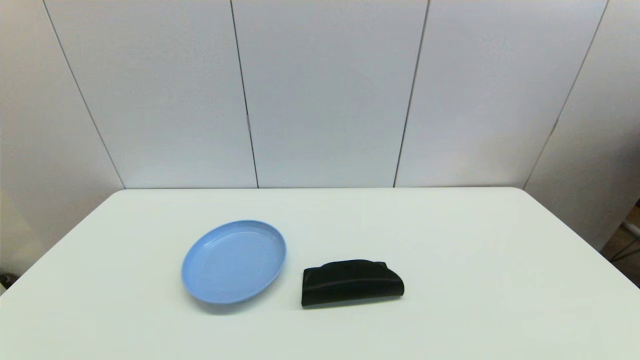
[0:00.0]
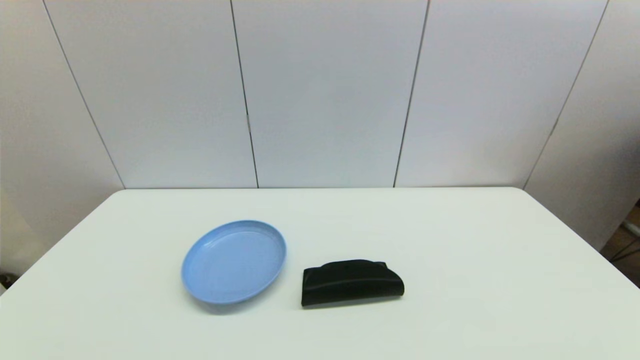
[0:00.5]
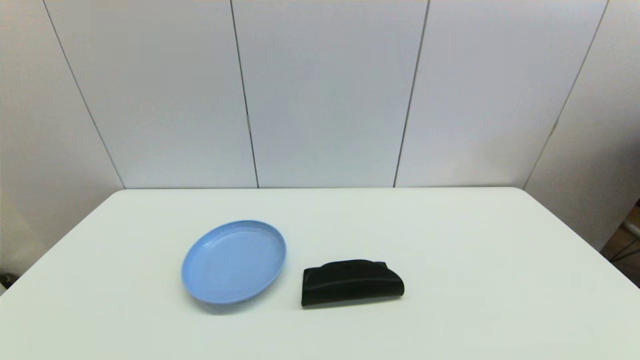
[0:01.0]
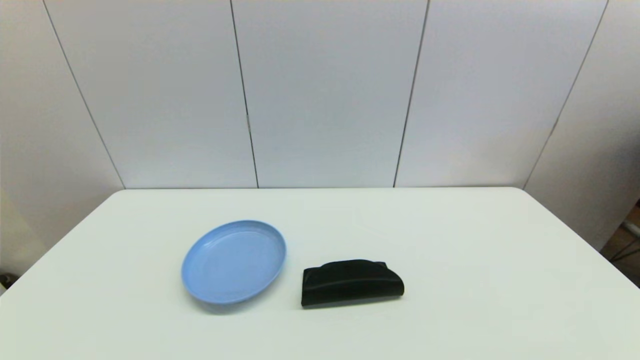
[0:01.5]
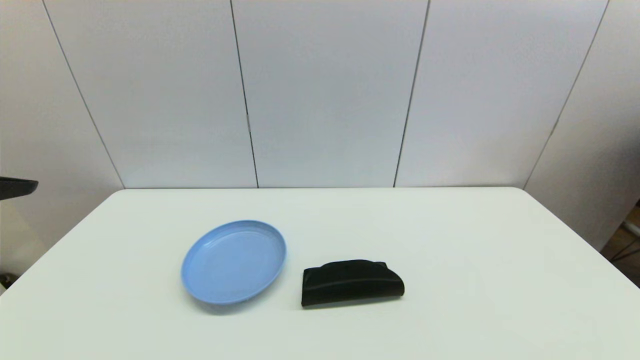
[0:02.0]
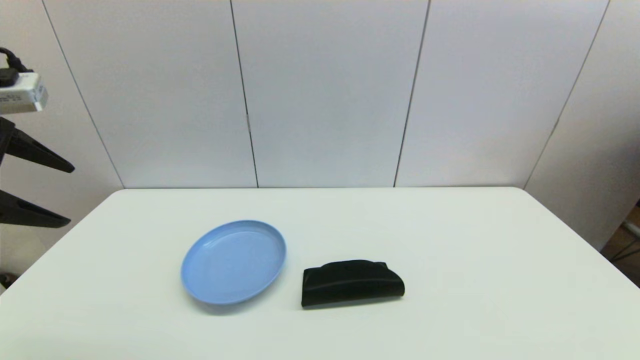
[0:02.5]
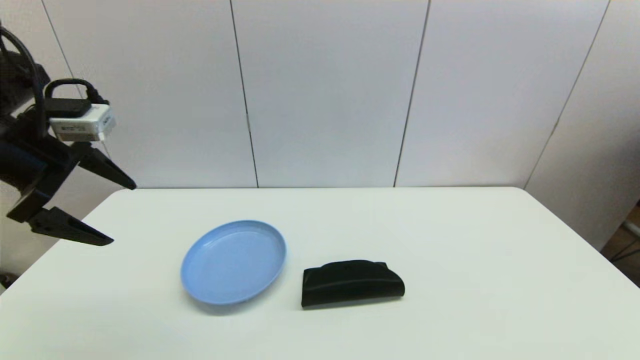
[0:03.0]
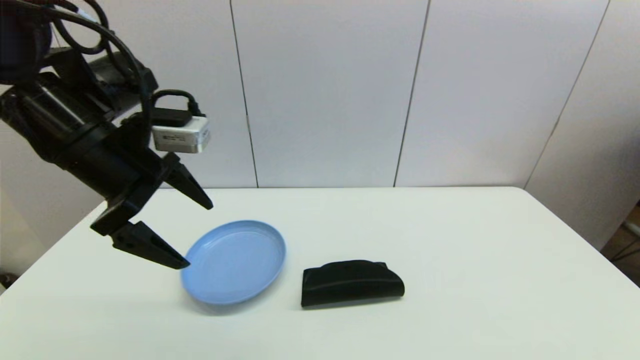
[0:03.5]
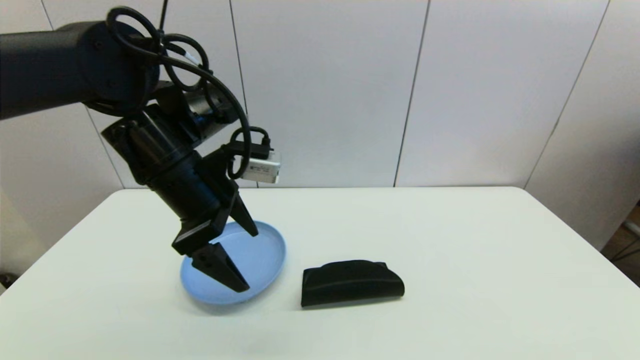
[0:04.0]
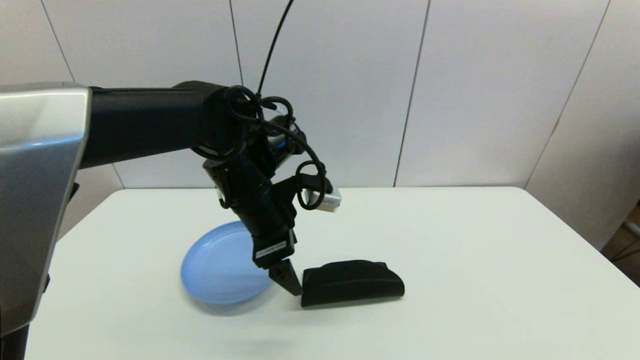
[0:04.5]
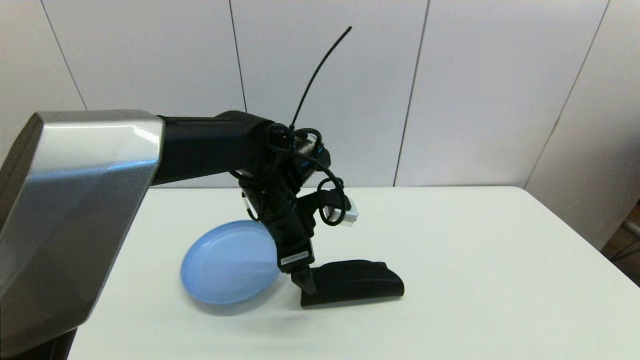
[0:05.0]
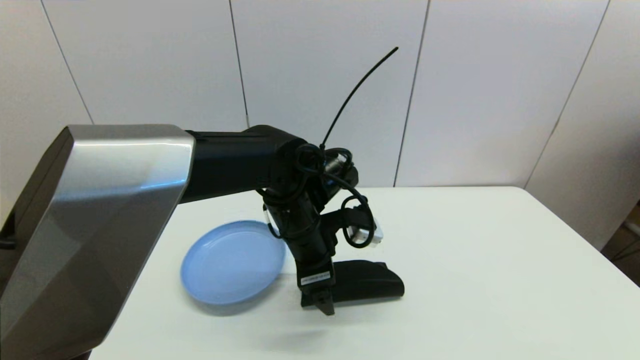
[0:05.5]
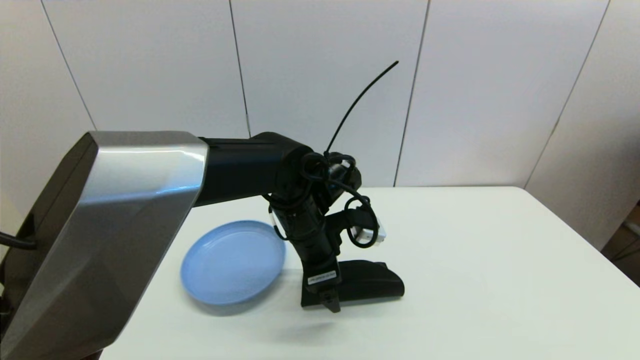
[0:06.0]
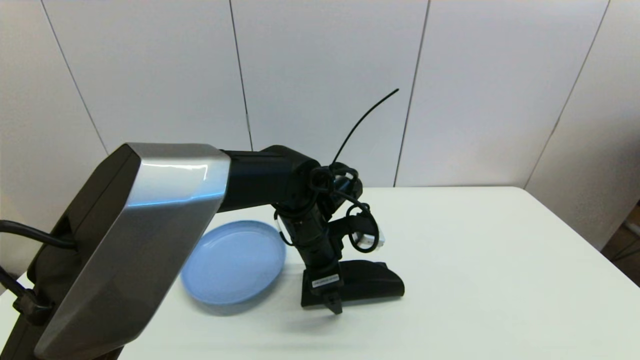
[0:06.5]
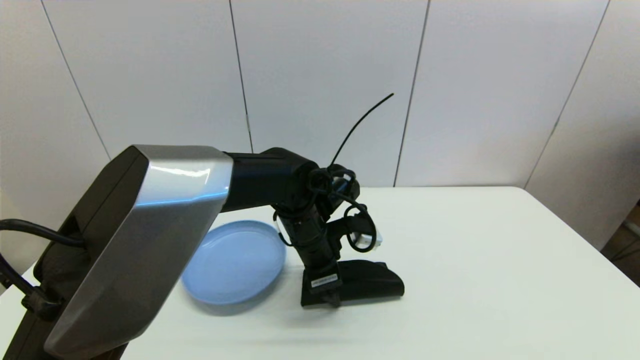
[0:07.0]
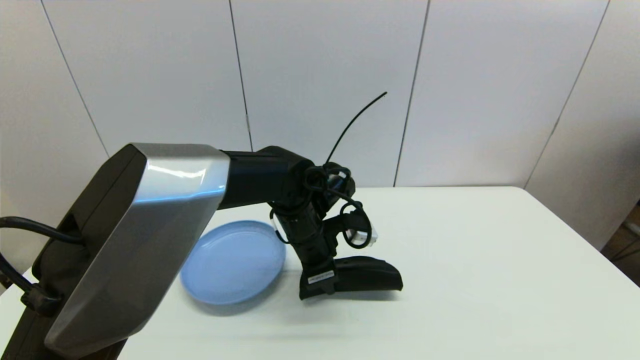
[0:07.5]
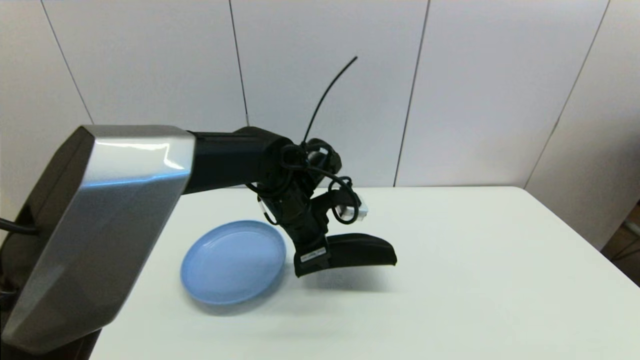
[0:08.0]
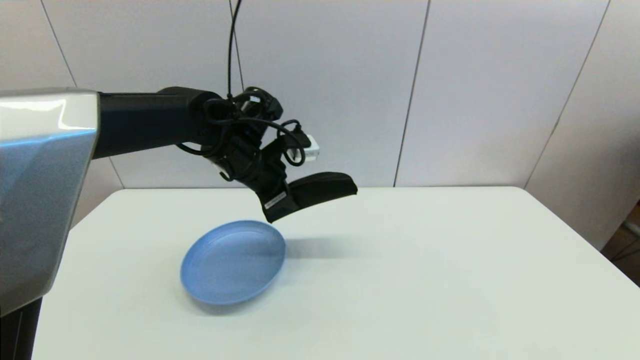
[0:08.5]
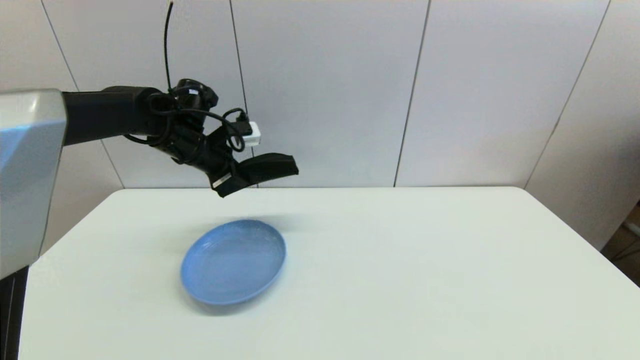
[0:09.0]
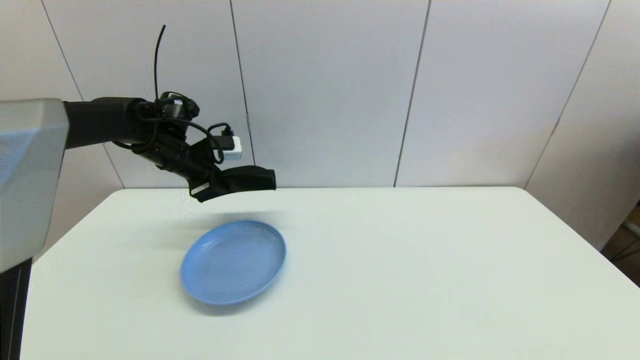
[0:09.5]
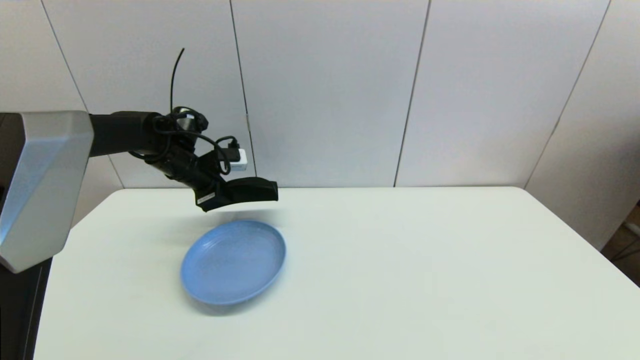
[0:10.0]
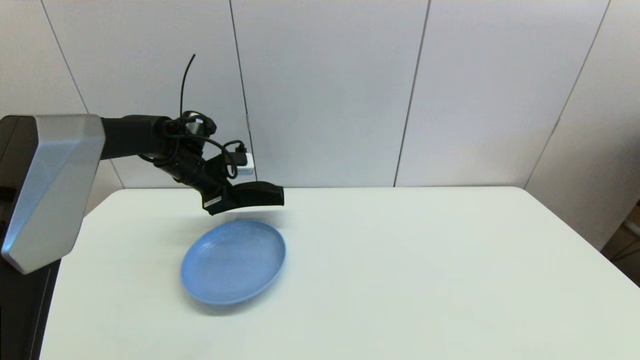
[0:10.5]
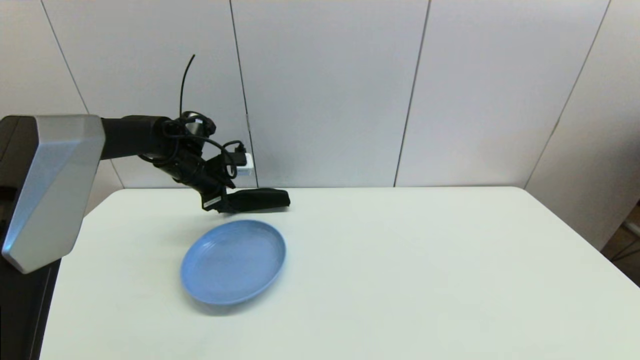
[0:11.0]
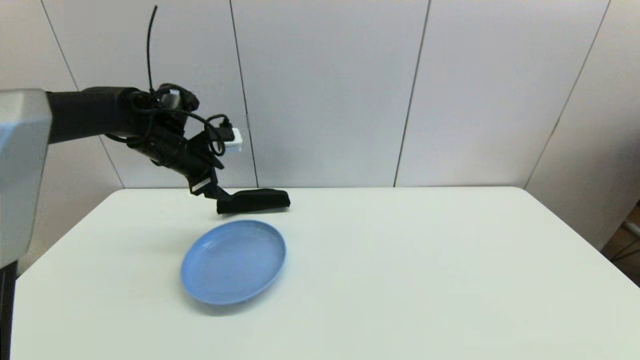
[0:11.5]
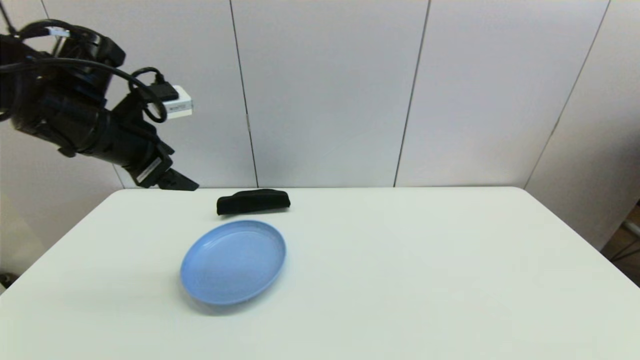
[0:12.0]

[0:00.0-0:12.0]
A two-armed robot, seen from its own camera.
Step, 0:02.0 to 0:07.0: Grasp the glasses case with left gripper.
Step, 0:07.5 to 0:10.5: Place the glasses case on the table with left gripper.
0:02.0 to 0:04.0: The left gripper heads to the right, forward and downward, covering some 25 cm.
0:04.0 to 0:06.0: The left gripper moves to the right and downward, roughly 20 cm.
0:06.0 to 0:08.0: The left gripper closes its fingers.
0:08.0 to 0:10.0: The left gripper goes about 25 cm to the left and forward.
0:10.0 to 0:12.0: The left gripper moves backward and upward, about 20 cm, and opens up.

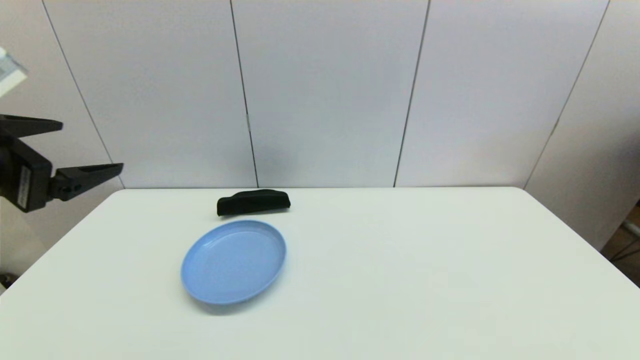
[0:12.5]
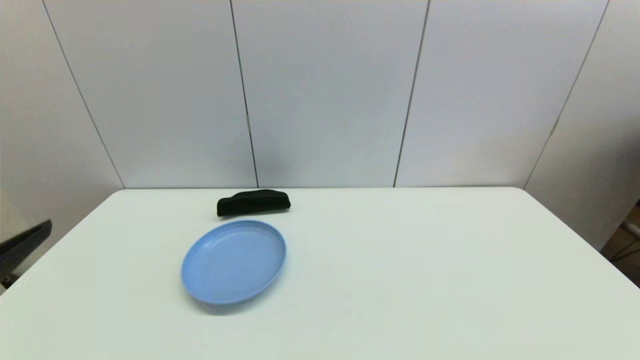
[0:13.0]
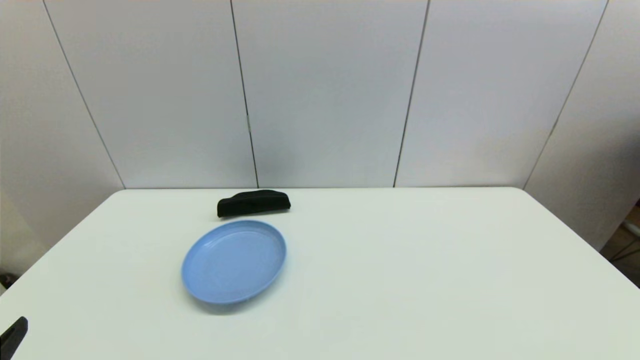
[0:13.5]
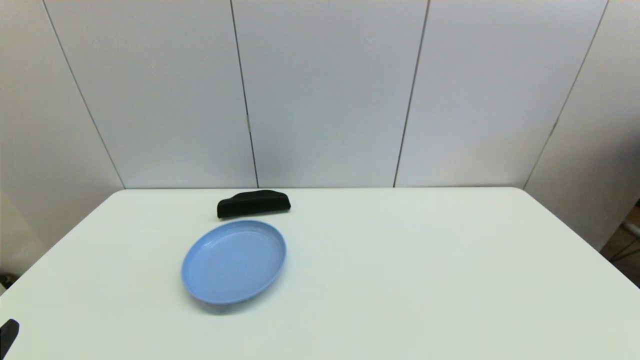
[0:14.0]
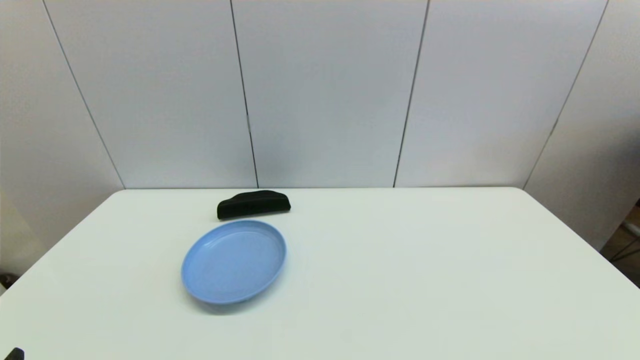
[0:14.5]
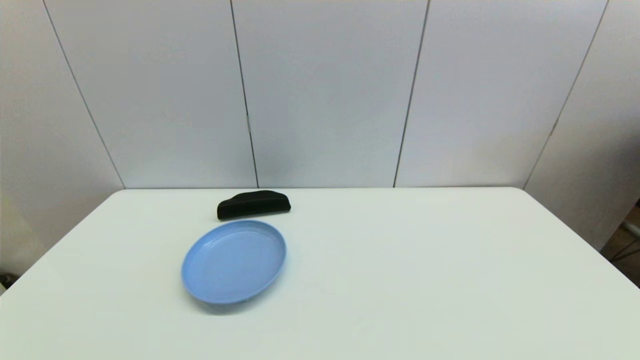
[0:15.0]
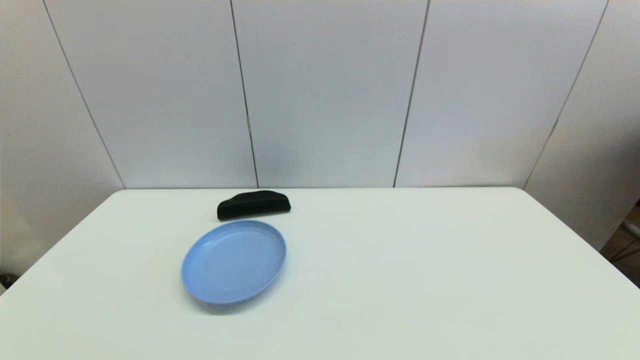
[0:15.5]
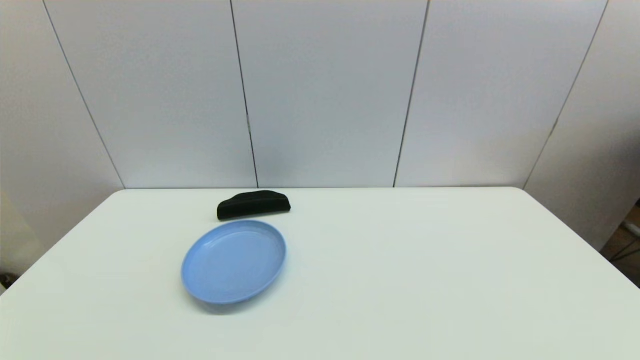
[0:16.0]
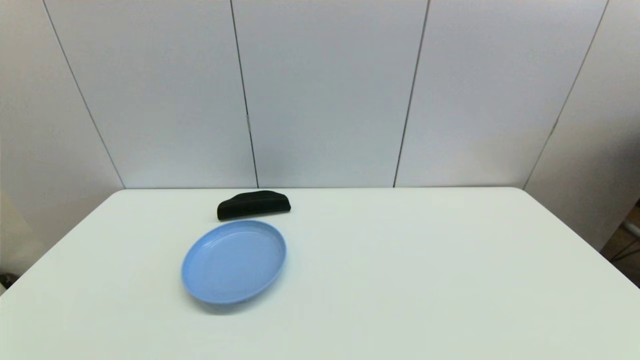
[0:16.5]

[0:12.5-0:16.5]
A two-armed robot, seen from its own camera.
0:12.5 to 0:14.5: The left gripper shifts some 25 cm downward and backward.

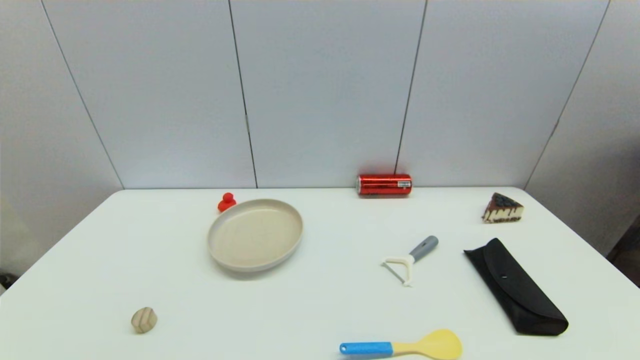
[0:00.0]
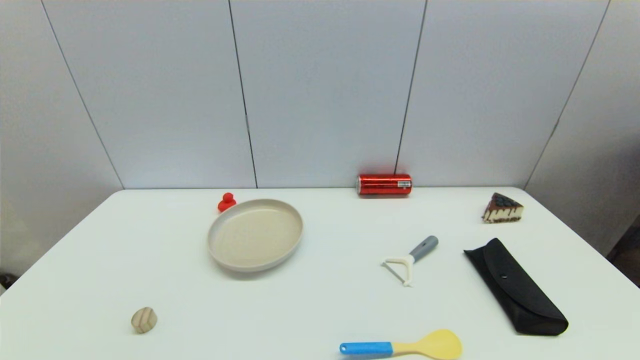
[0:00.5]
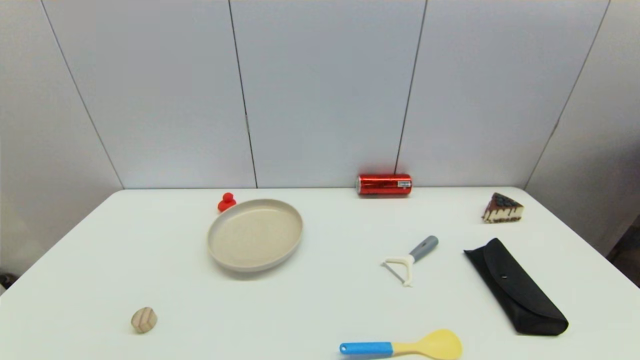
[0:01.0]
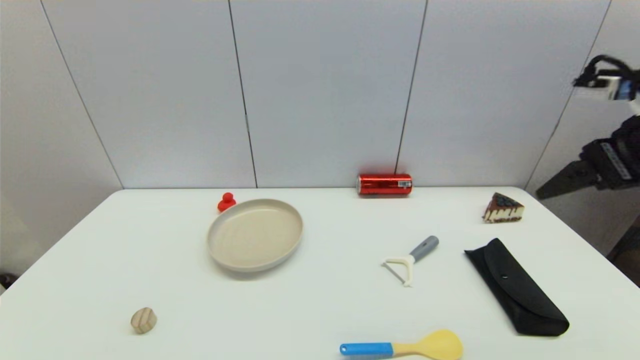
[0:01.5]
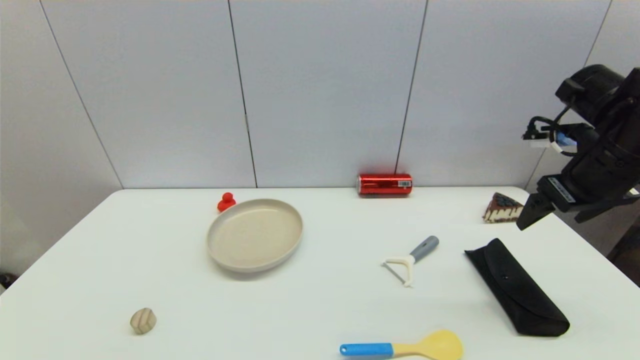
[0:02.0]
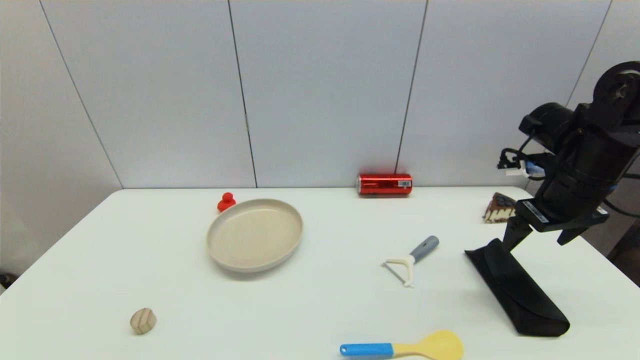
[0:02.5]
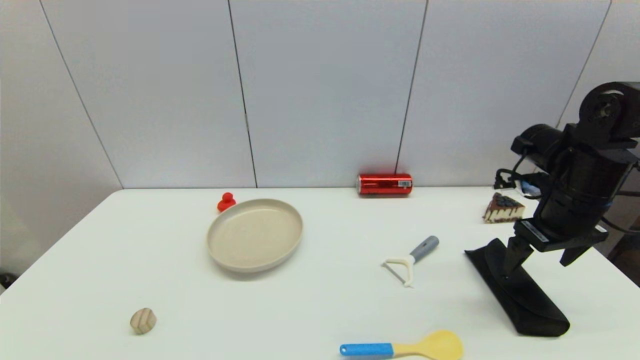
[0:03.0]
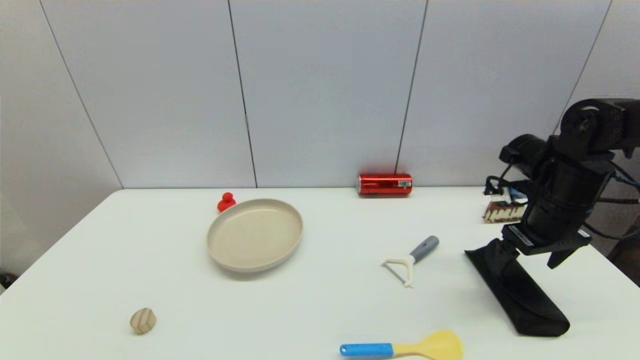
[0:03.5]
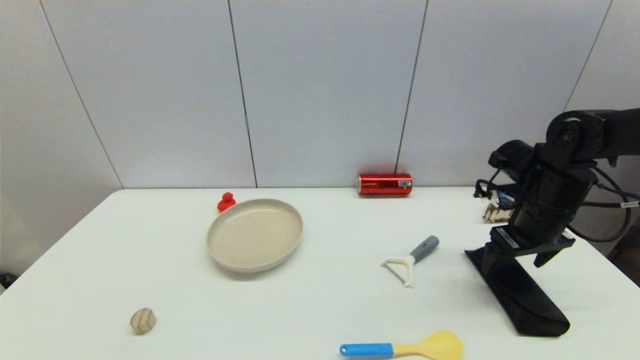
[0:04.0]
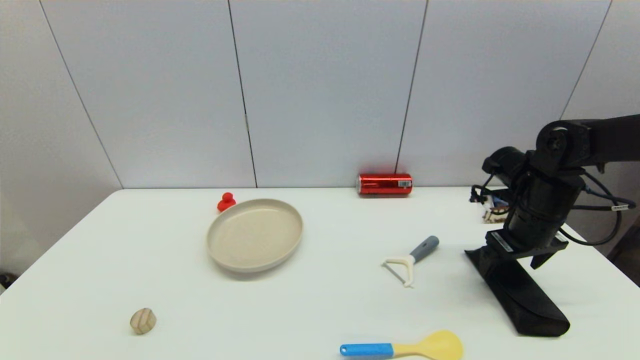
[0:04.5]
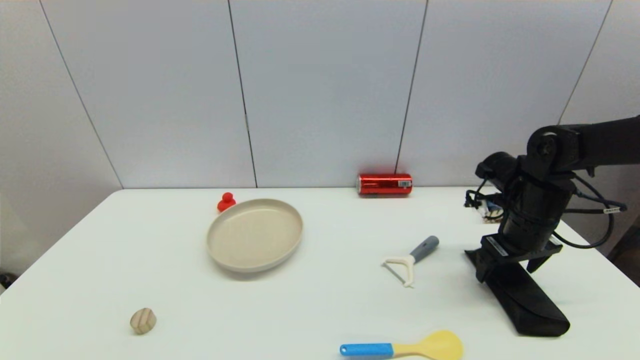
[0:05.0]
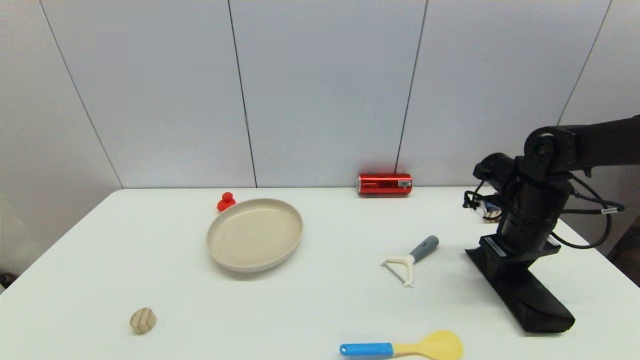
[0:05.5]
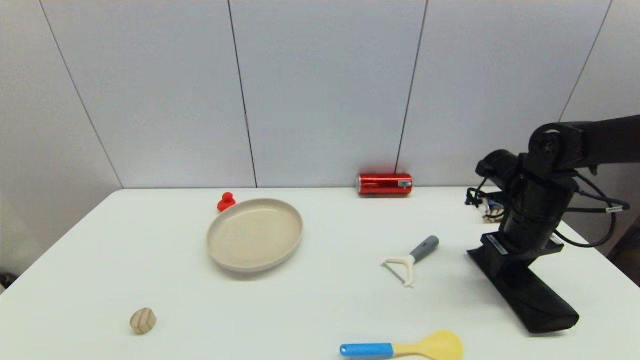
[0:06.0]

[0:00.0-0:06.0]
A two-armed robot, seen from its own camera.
Step, 0:01.5 to 0:05.5: Grasp the glasses case with right gripper.
0:00.0 to 0:02.0: The right gripper is displaced forward and upward by roughly 35 cm.
0:02.0 to 0:04.0: The right gripper heads downward, covering some 10 cm.
0:04.0 to 0:06.0: The right gripper closes its fingers.
